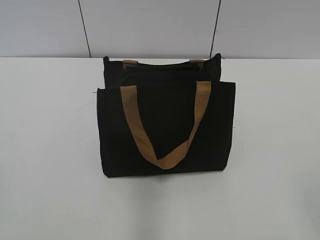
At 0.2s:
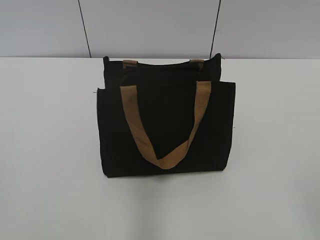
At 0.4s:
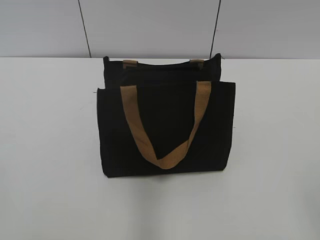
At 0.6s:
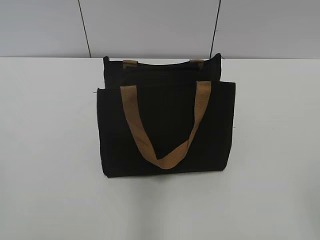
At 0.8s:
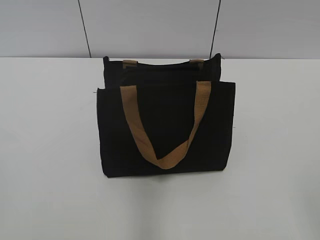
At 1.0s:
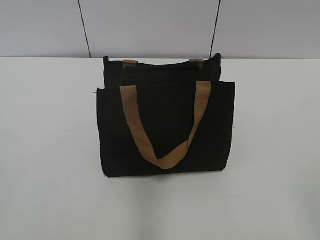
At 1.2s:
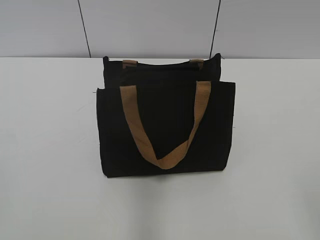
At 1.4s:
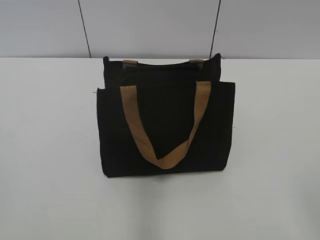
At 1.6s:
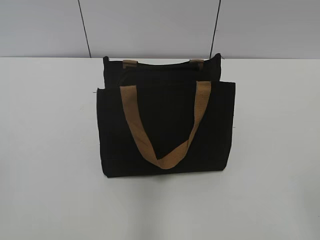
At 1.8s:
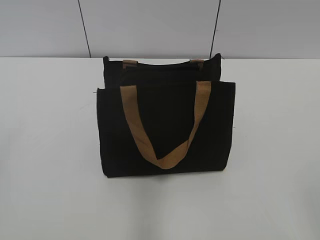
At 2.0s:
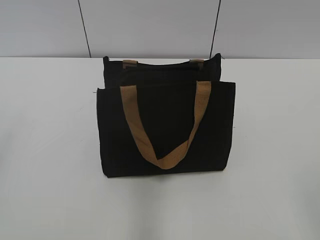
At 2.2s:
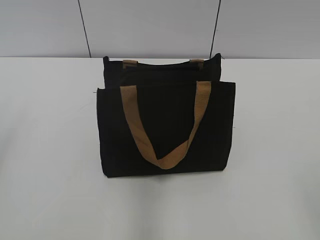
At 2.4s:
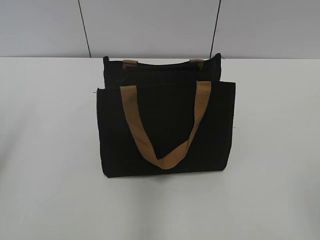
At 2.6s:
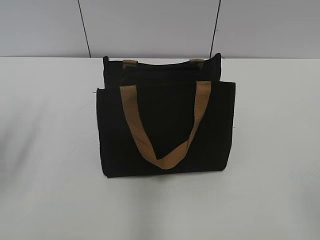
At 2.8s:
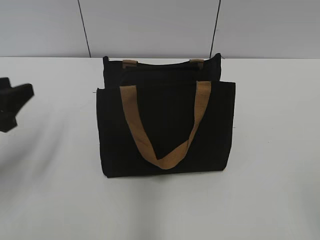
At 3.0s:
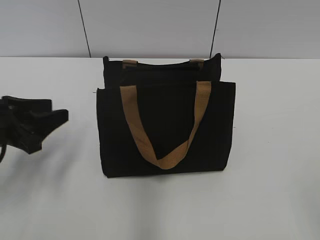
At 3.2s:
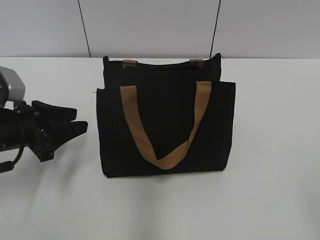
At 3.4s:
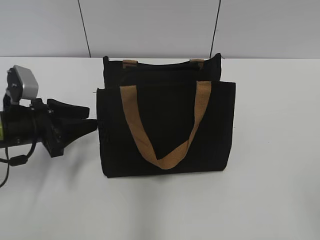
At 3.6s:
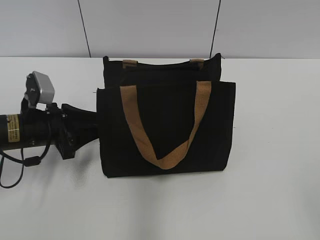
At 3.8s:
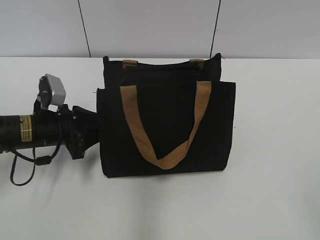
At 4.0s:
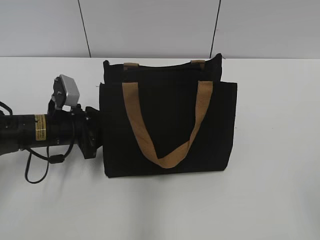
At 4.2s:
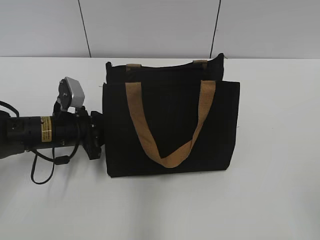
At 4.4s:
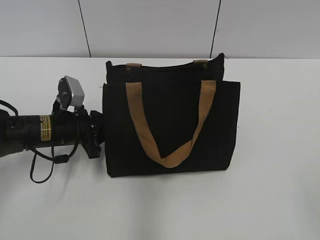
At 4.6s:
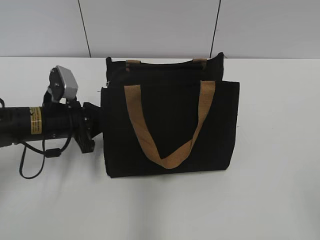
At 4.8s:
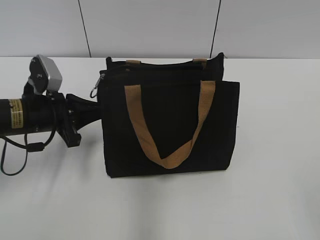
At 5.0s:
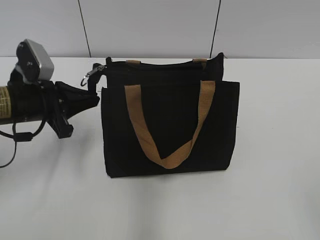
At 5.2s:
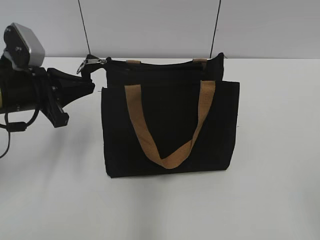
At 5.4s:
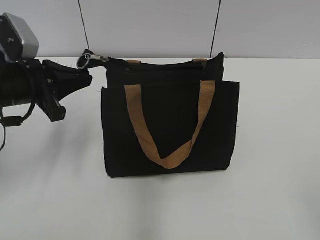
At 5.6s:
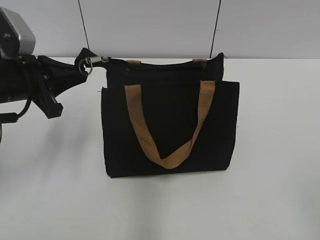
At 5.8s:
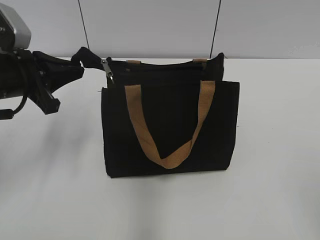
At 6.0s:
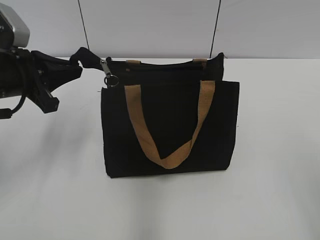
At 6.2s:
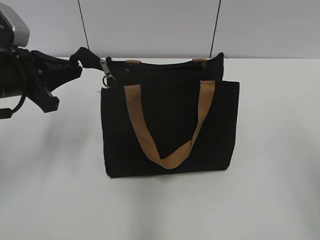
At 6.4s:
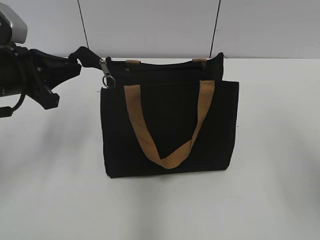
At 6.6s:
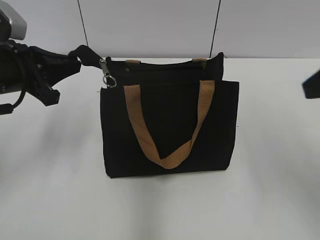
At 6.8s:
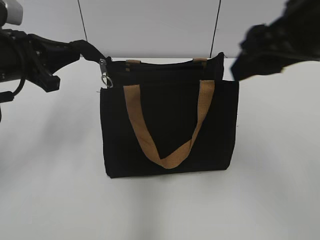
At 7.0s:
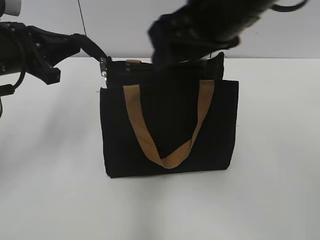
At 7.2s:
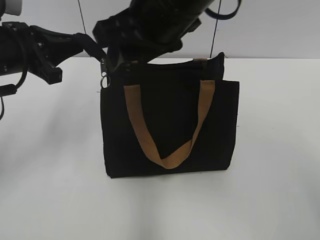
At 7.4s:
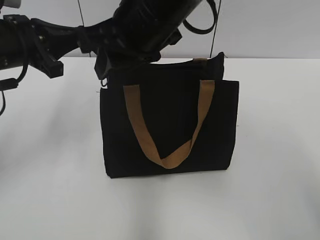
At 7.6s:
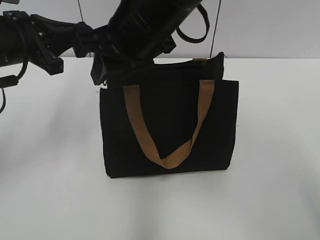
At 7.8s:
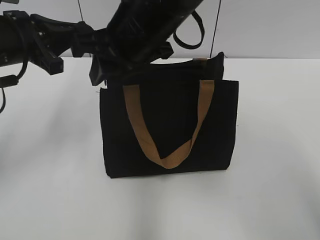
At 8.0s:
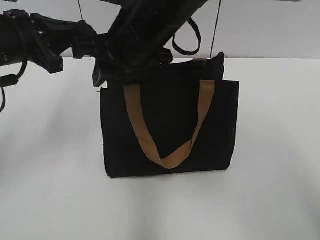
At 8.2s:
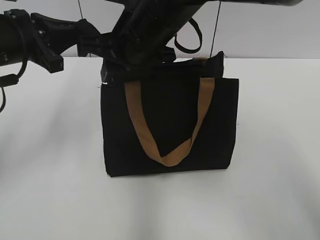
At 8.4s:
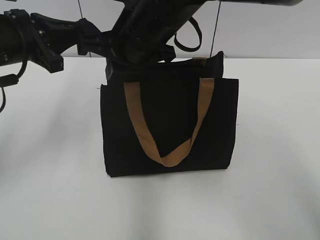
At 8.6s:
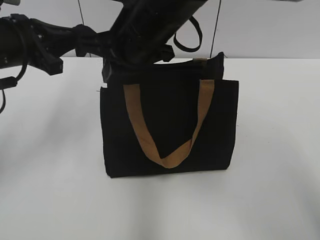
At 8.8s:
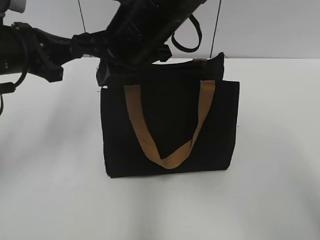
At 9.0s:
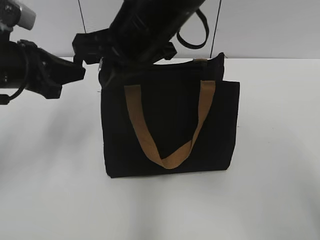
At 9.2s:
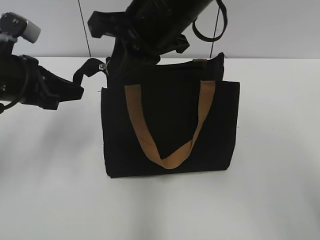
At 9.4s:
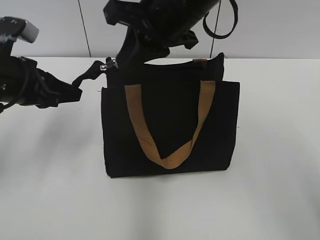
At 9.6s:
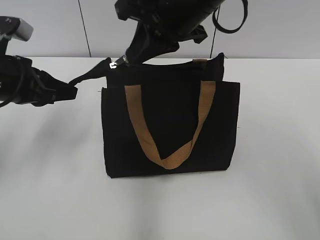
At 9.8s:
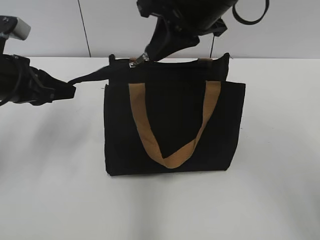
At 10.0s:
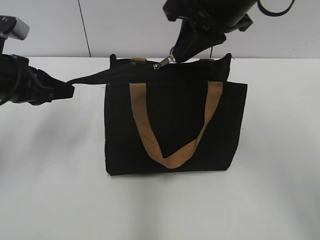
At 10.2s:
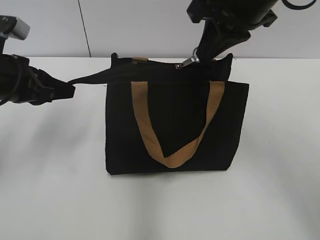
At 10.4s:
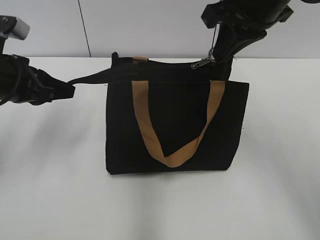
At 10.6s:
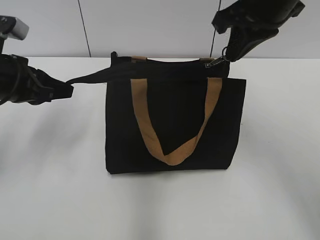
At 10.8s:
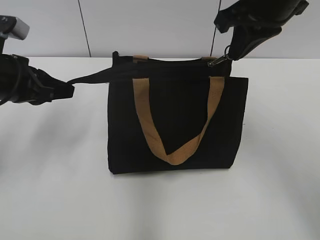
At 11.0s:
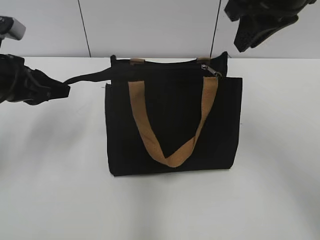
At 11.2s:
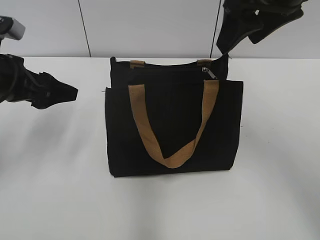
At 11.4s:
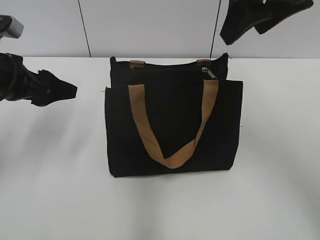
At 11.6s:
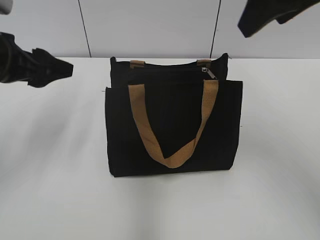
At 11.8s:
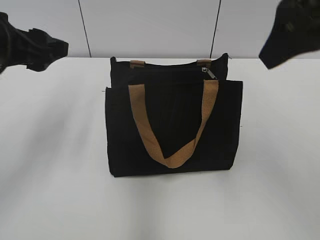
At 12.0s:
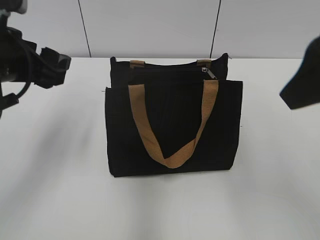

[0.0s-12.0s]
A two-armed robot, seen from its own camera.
Step, 0.0s to 10.8s: Zip up the bag with your right hand.
1.6s to 3.0s: The left gripper heads forward and downward, covering approximately 30 cm.
3.0s to 4.4s: The left gripper moves forward, downward and to the right, some 15 cm, and closes.
4.4s to 6.0s: The right gripper changes place by some 5 cm. The left gripper shifts some 15 cm upward.
6.0s to 7.6s: The right gripper travels to the left and forward by roughly 40 cm, and closes.
7.6s to 9.0s: The right gripper closes its fingers.
9.0s to 10.4s: The right gripper is displaced to the right by approximately 15 cm.
10.4s to 12.0s: The right gripper is displaced backward by some 15 cm, and opens its fingers. The left gripper changes place by approximately 5 cm, and opens.

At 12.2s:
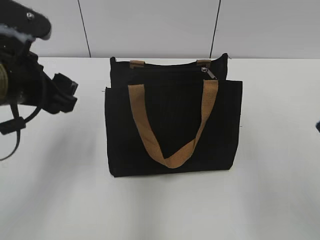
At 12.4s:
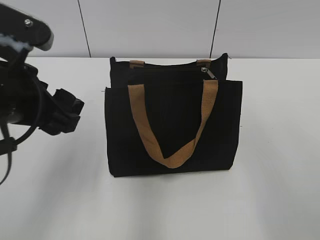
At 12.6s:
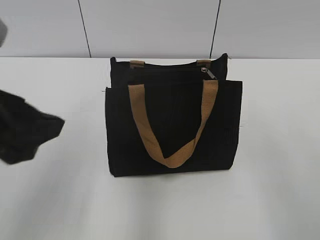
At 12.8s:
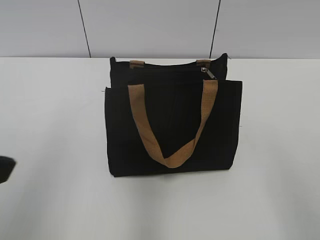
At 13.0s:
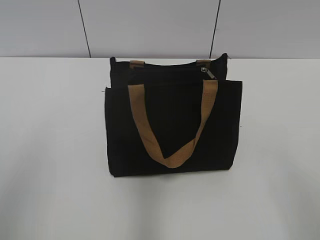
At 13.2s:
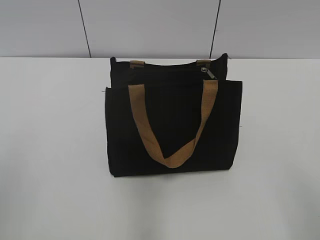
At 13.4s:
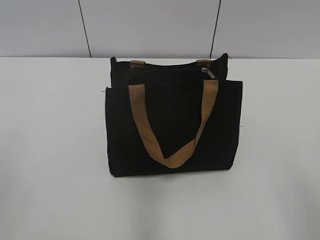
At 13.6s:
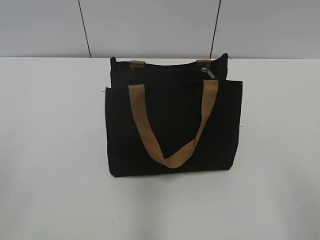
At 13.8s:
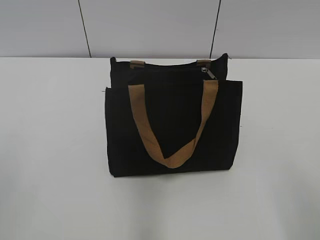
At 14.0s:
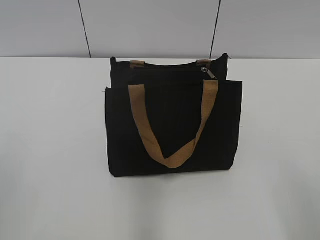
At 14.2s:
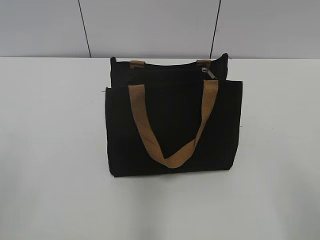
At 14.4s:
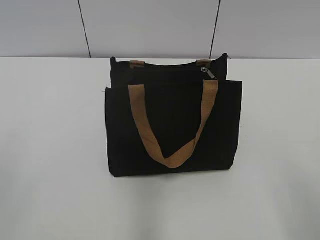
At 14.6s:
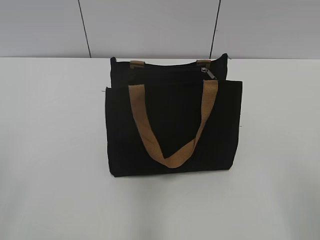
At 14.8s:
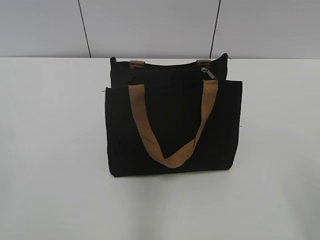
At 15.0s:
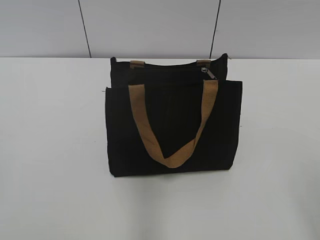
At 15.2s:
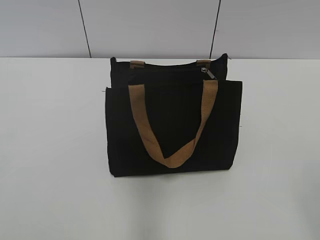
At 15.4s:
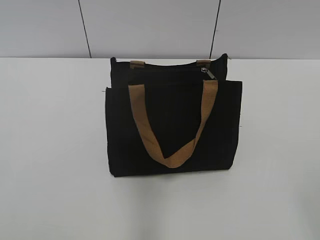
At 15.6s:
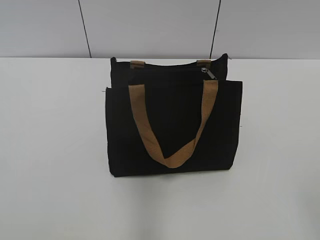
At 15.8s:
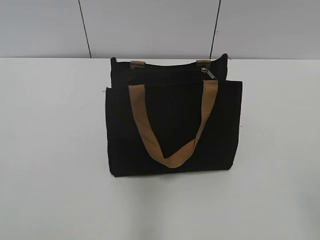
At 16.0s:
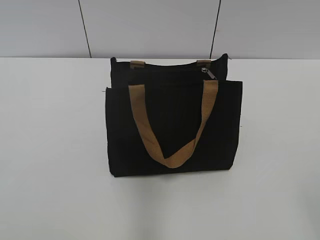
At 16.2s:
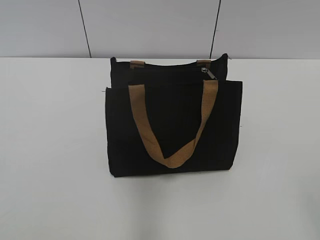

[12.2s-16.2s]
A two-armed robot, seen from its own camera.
12.2s to 13.6s: The left gripper heads backward and to the left, covering approximately 25 cm.

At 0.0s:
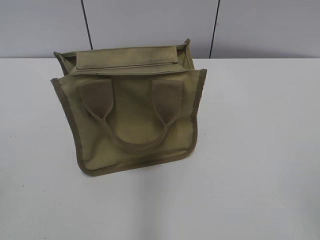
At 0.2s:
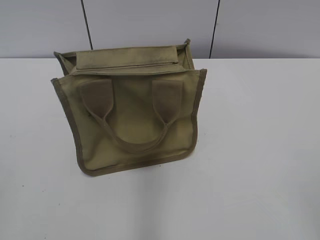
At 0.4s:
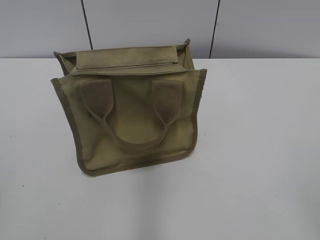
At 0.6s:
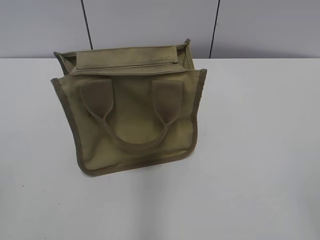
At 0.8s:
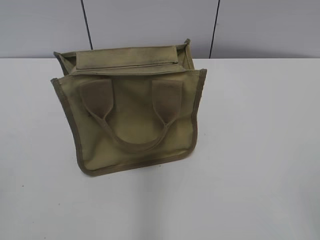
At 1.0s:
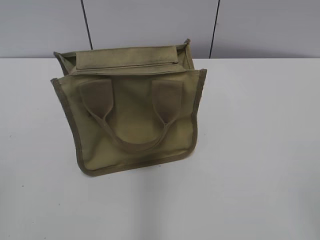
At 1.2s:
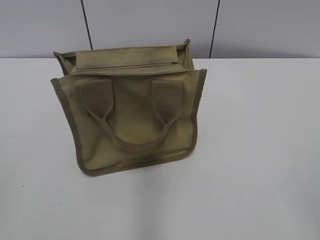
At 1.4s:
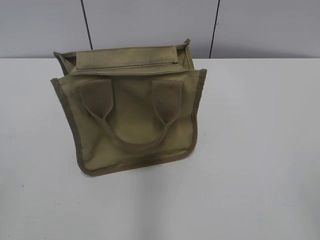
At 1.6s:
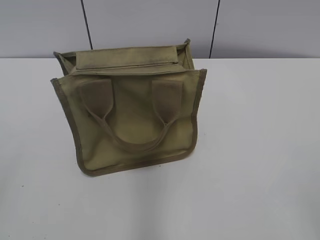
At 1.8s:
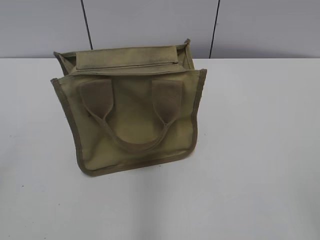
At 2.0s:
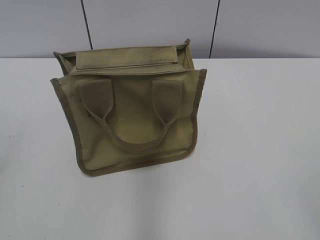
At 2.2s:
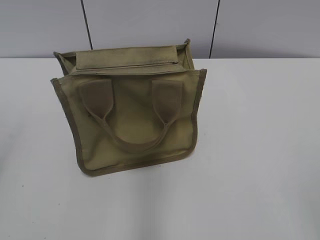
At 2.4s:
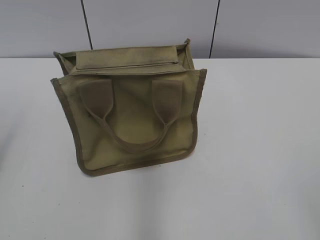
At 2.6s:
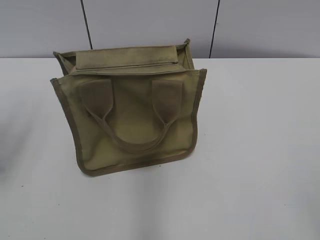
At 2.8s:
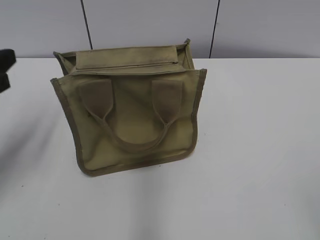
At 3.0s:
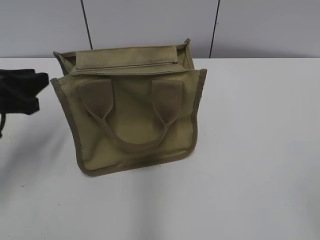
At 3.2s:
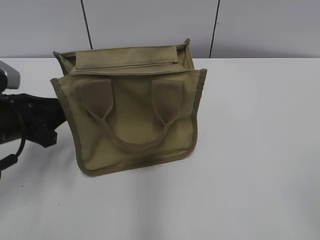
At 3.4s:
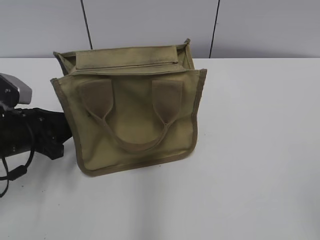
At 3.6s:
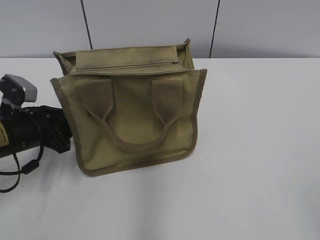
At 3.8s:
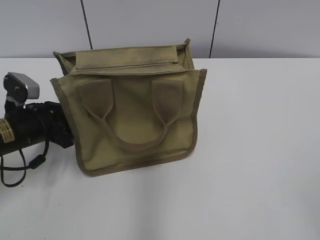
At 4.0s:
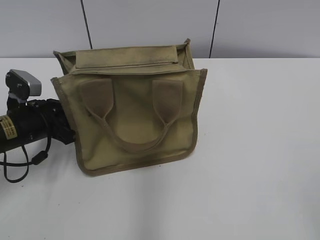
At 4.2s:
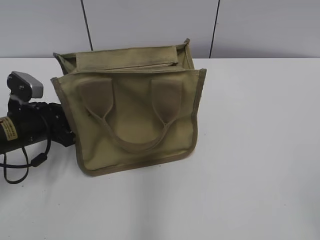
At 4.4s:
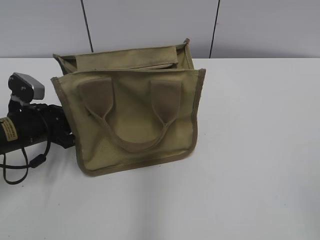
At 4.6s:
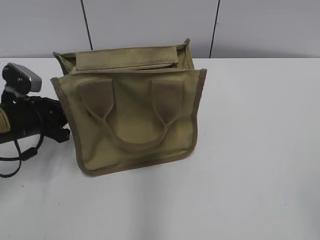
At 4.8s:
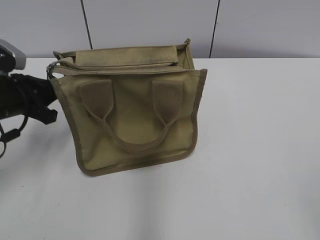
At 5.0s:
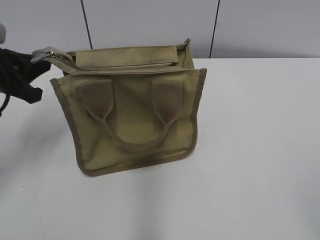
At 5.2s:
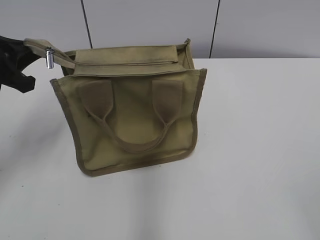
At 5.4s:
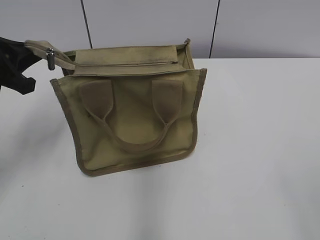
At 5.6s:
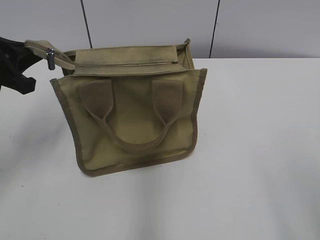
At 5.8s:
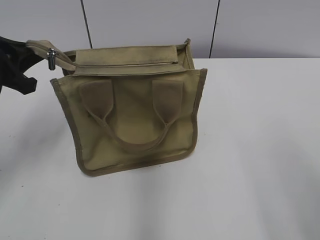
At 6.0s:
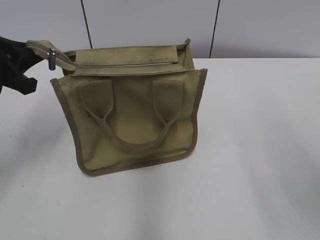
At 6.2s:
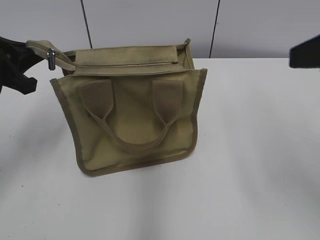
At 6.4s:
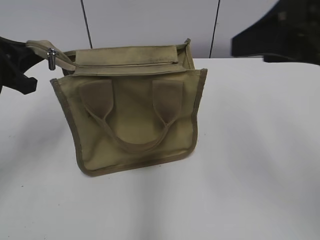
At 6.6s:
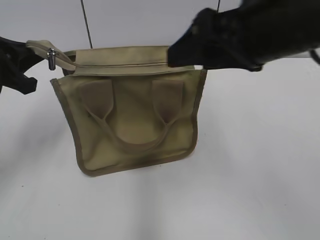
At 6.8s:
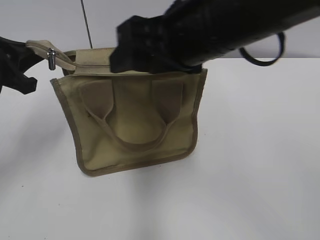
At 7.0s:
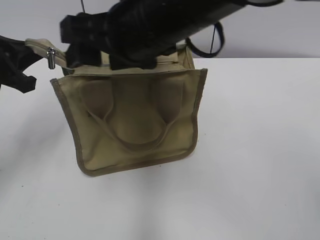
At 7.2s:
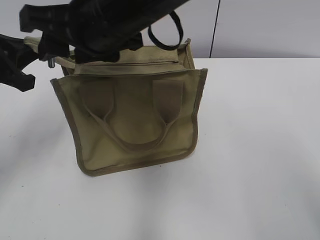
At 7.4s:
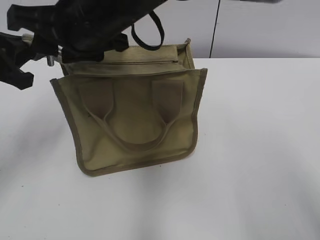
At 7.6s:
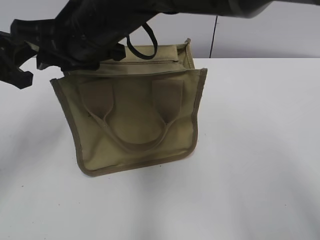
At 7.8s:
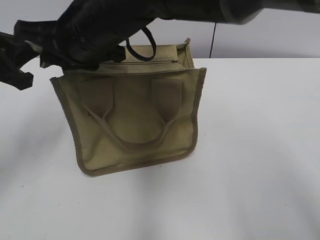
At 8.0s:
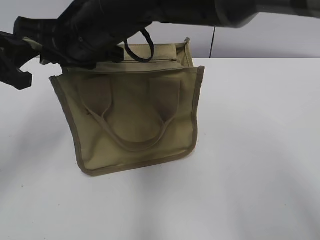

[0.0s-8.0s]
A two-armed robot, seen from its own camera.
1.6s to 3.2s: The left gripper goes approximately 30 cm forward and downward, and closes.
3.2s to 4.8s: The left gripper closes its fingers.
4.8s to 6.4s: The right gripper shifts approximately 20 cm forward. The left gripper is displaced upward by about 10 cm.
6.4s to 8.0s: The right gripper heads to the left, covering about 30 cm, and closes its fingers.
